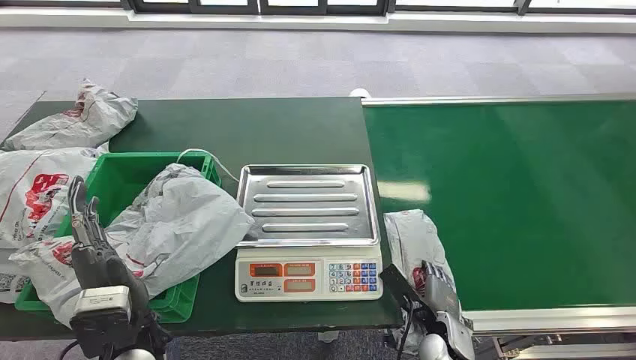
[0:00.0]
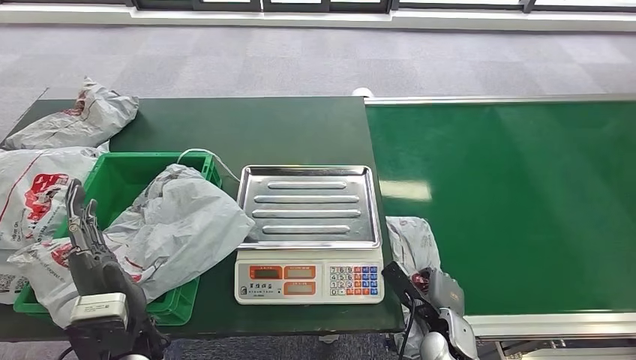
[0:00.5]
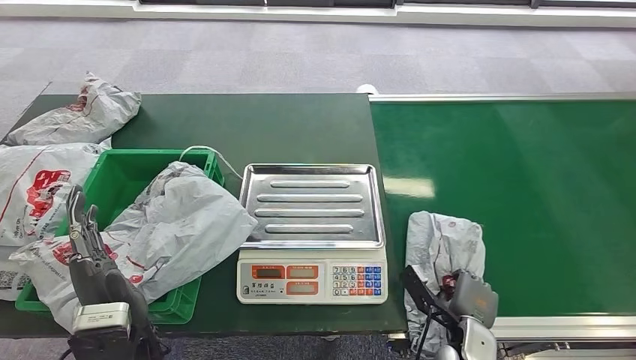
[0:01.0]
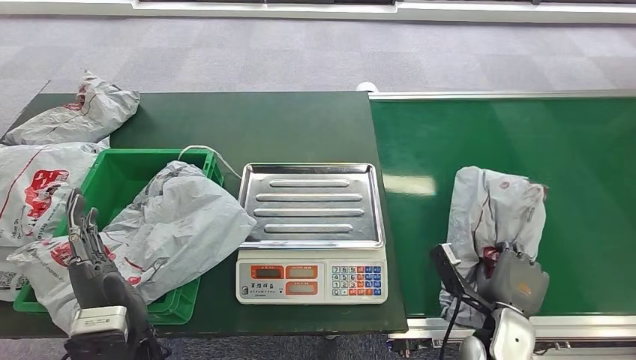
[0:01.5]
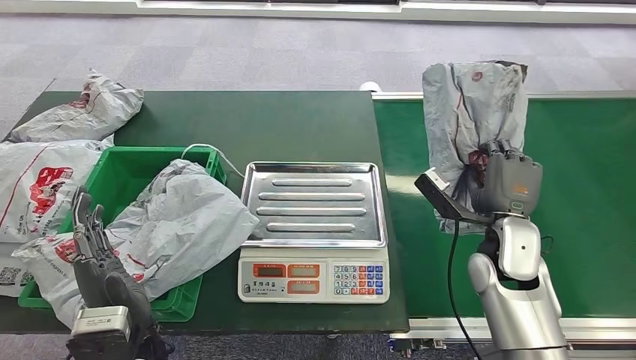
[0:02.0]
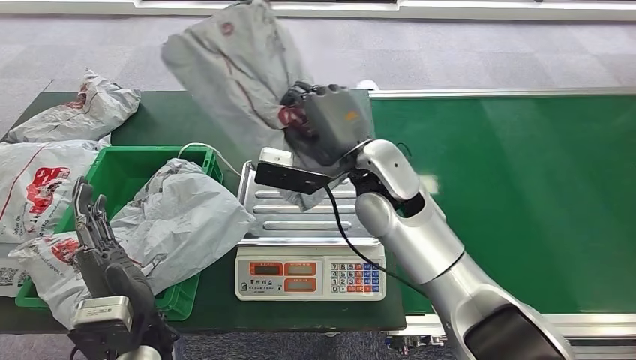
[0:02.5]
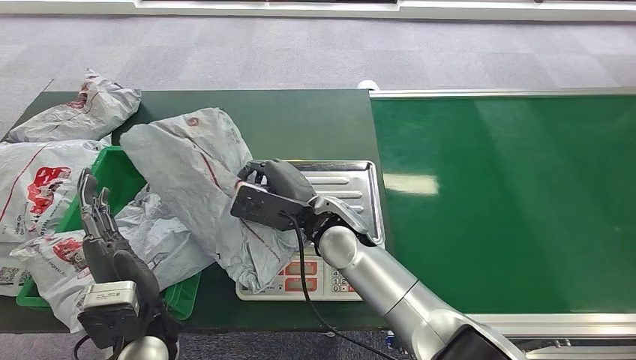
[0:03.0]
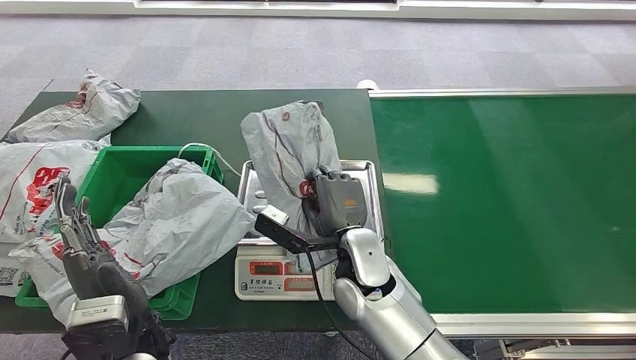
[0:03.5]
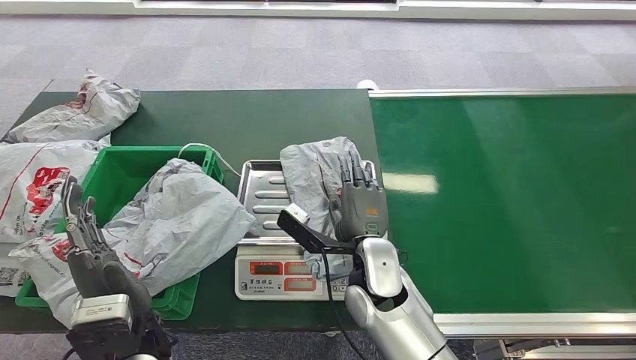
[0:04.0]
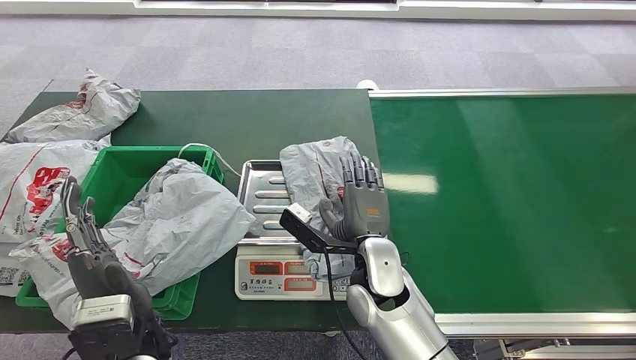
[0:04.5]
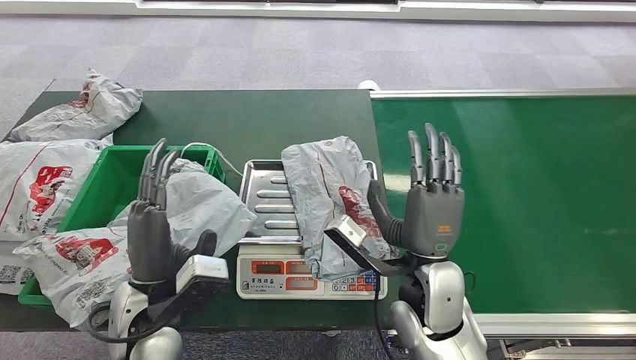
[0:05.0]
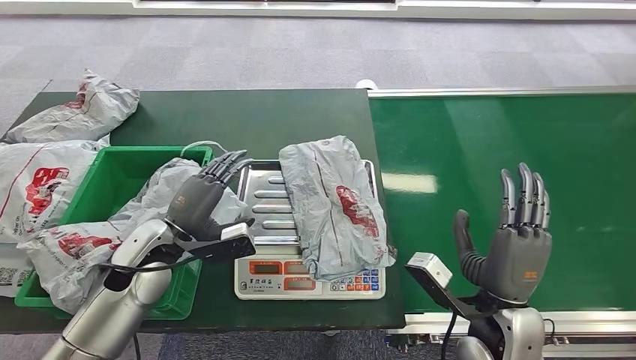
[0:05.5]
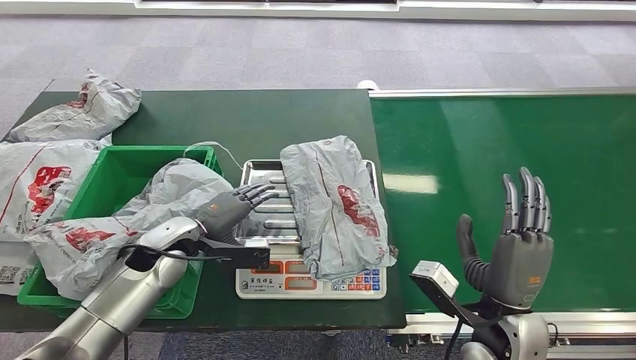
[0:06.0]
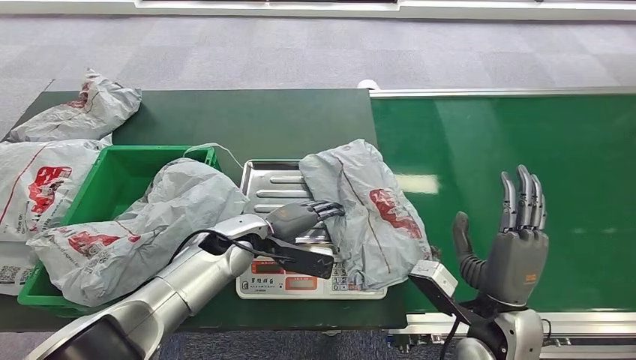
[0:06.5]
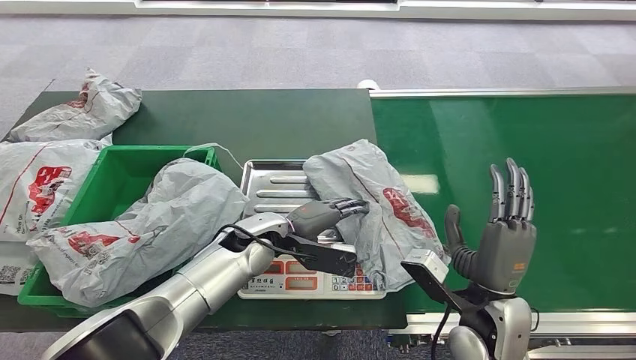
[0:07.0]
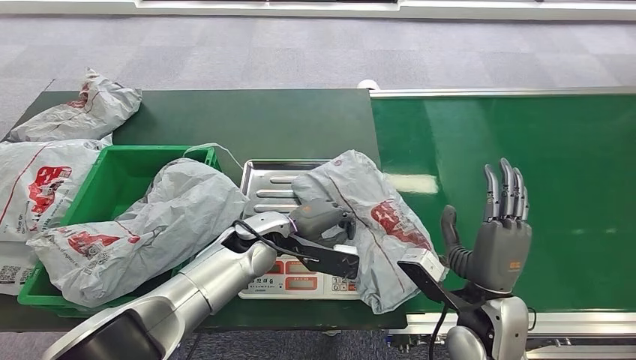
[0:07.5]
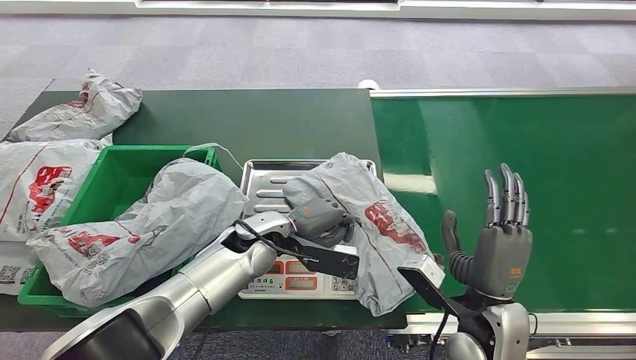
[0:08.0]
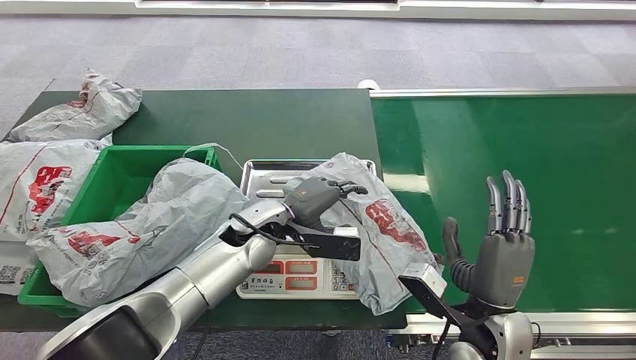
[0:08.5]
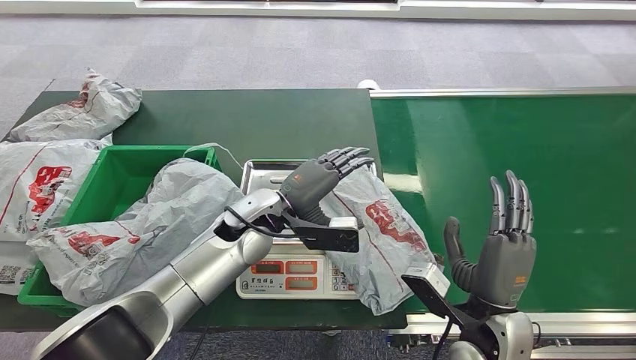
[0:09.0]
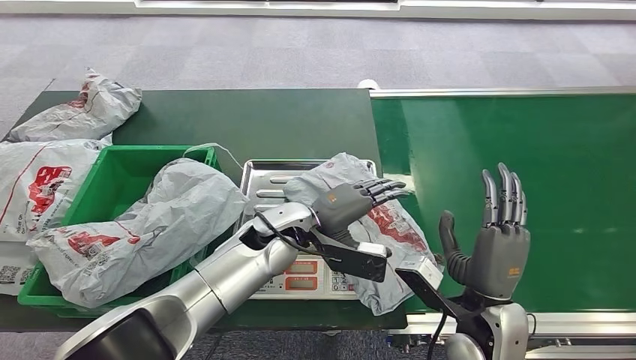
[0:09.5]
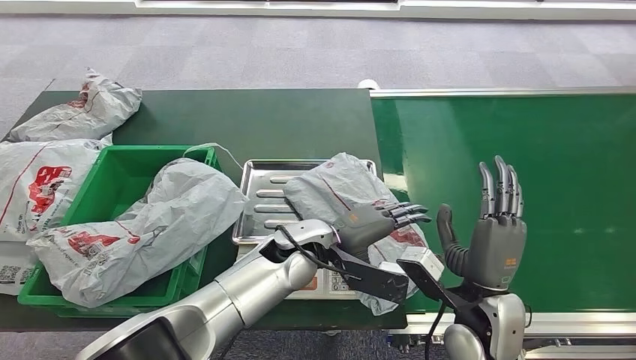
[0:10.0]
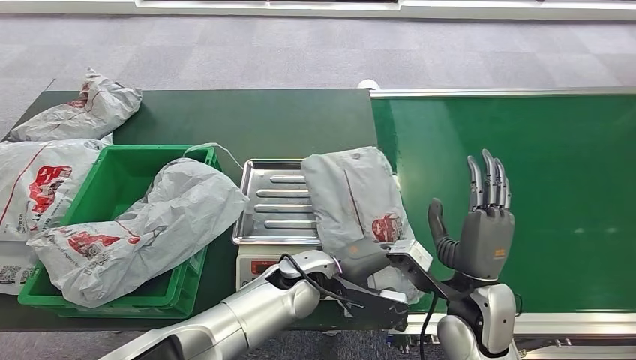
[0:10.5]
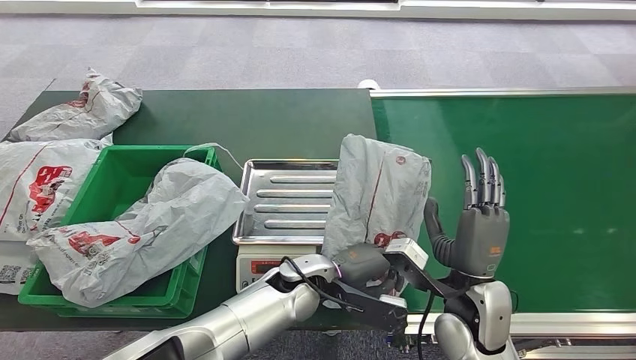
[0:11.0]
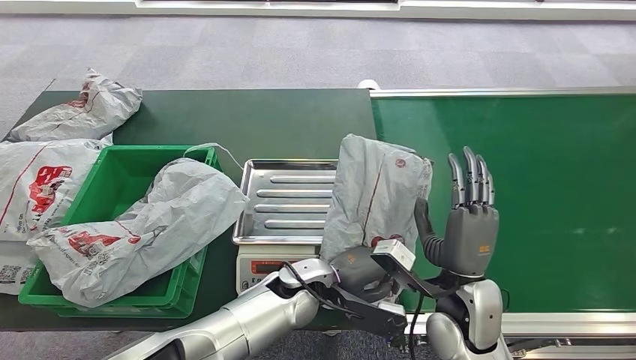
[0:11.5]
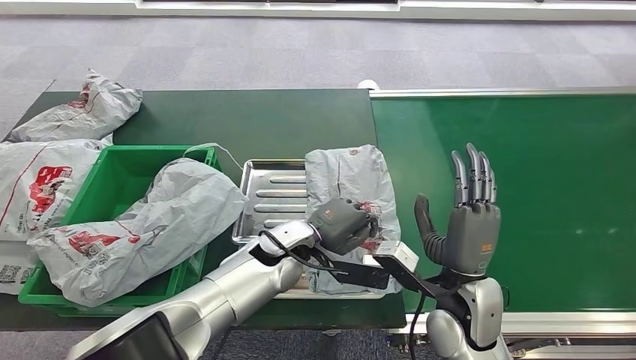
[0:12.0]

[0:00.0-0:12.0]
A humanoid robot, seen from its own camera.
Step, 0:00.0 to 0:02.0: Pick up the package from the conveyor belt.
Step, 0:02.5 to 0:05.5: Place the package onto the inbound machine.
0:08.0 to 0:10.0: The left hand travels to the right by some 10 cm.

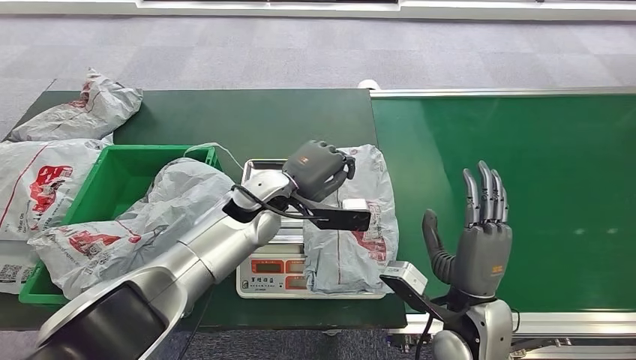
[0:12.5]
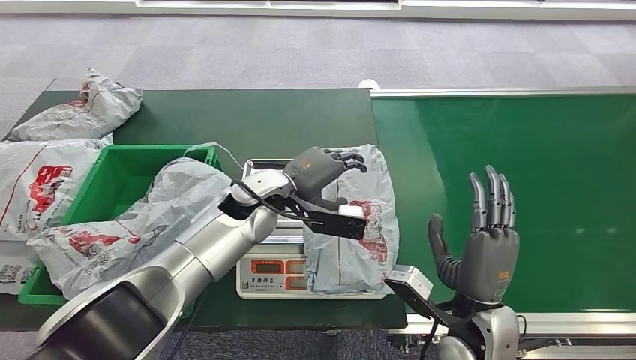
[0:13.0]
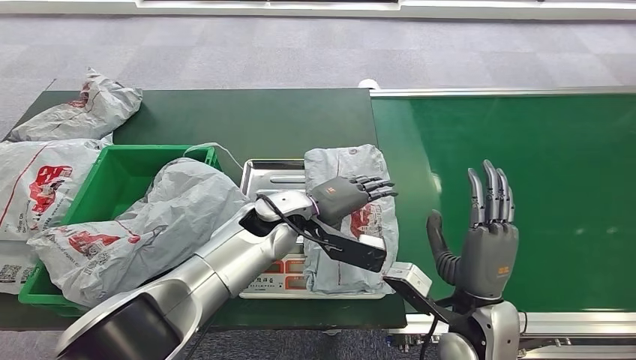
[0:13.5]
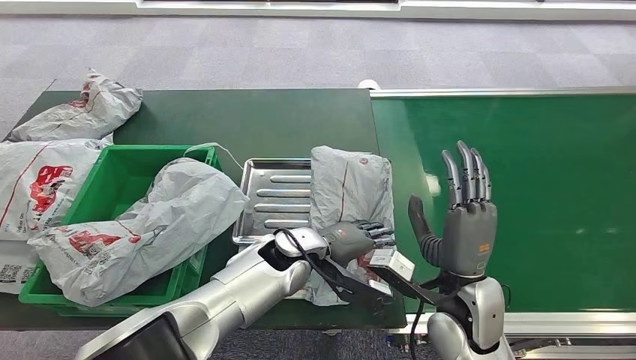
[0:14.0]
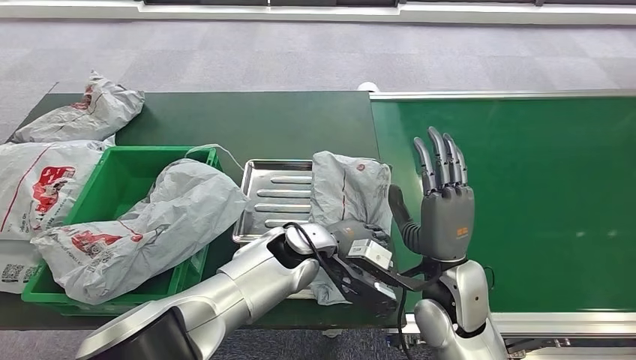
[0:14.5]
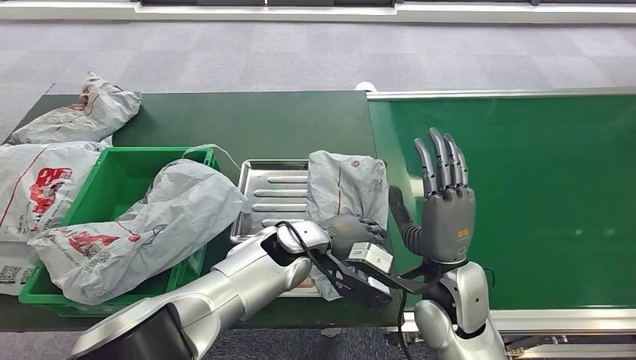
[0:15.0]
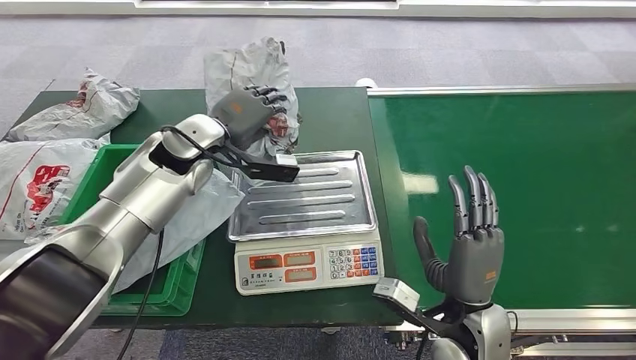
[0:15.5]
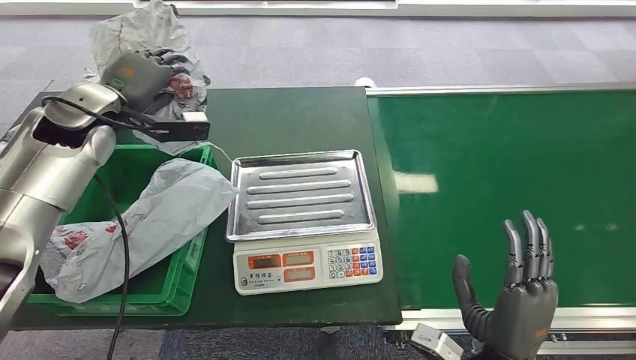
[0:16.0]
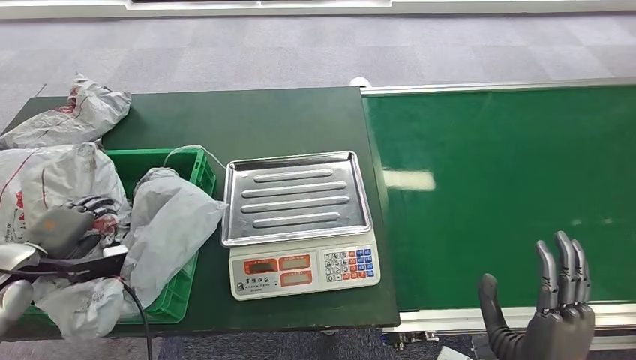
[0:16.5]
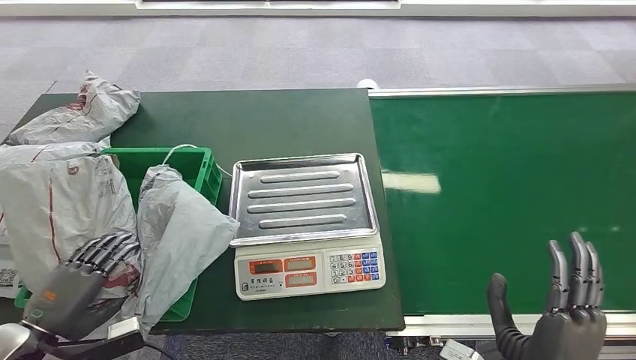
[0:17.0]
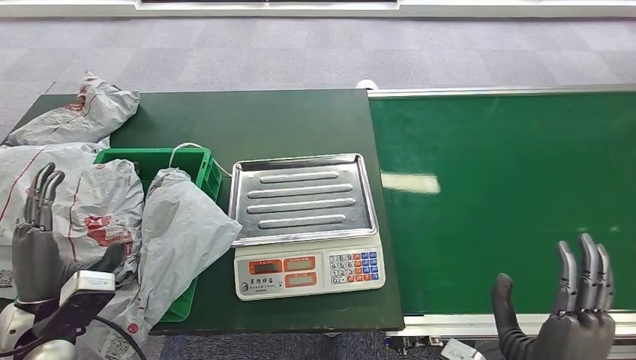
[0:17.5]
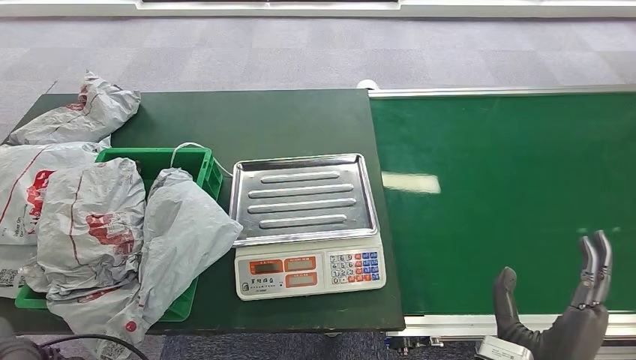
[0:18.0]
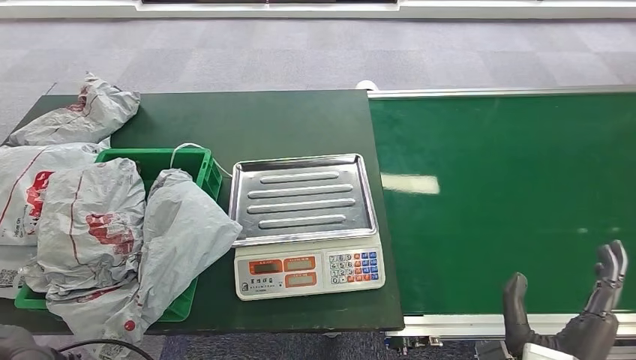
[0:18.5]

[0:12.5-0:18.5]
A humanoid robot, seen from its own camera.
Step, 0:12.5 to 0:15.5: Pick up the package from the inbound machine.
Step, 0:16.0 to 0:18.5: Place the package into the parcel locker.
